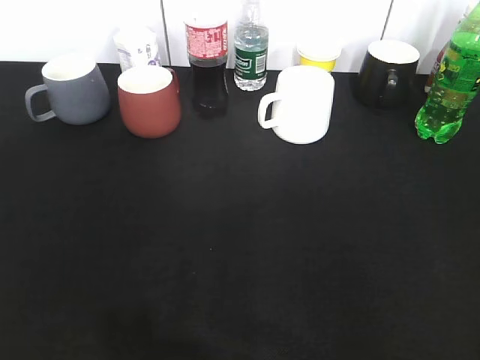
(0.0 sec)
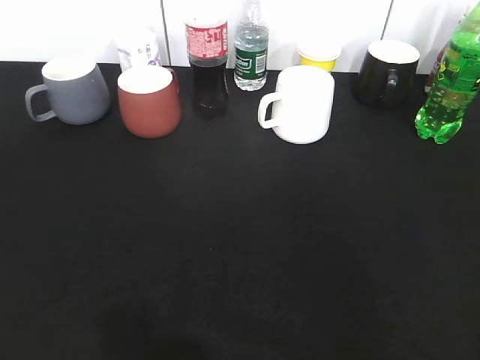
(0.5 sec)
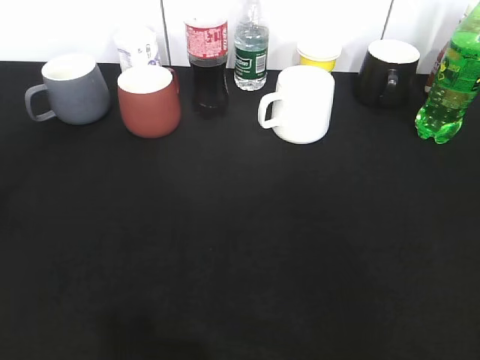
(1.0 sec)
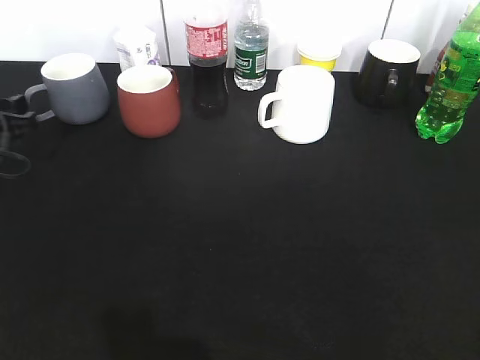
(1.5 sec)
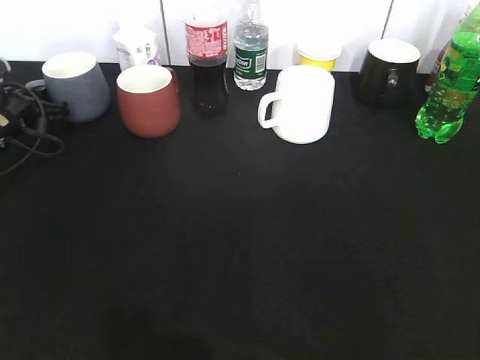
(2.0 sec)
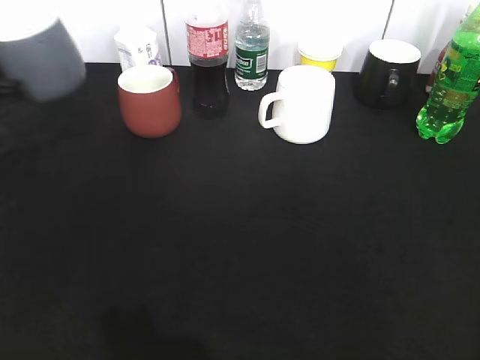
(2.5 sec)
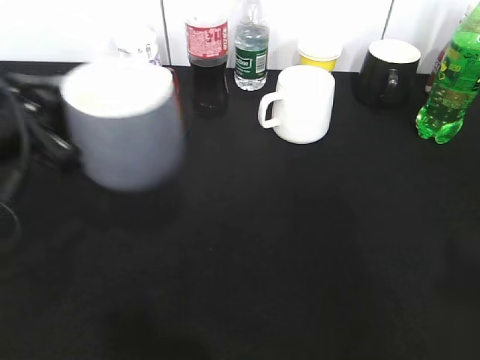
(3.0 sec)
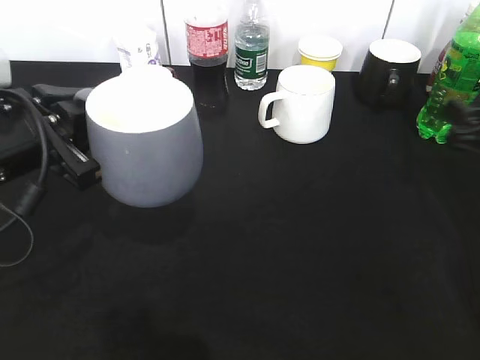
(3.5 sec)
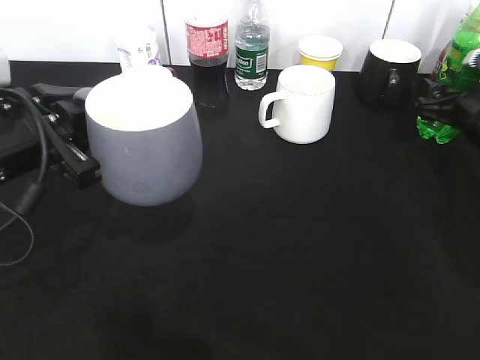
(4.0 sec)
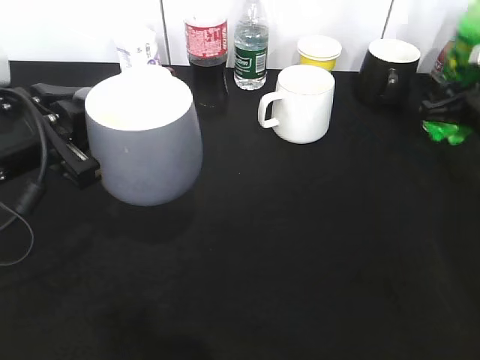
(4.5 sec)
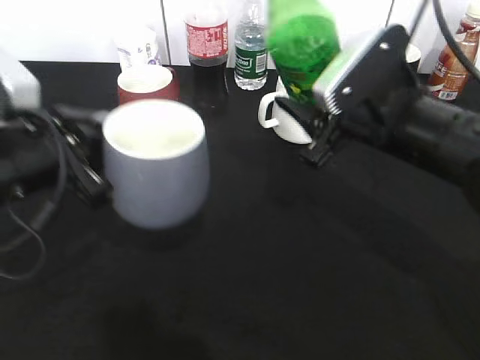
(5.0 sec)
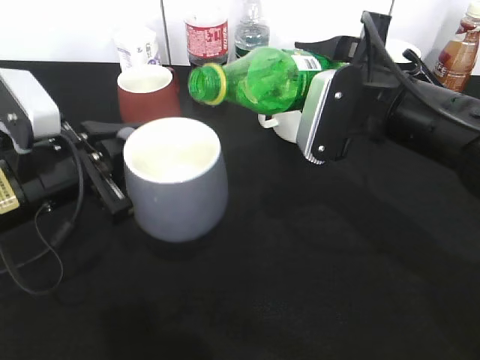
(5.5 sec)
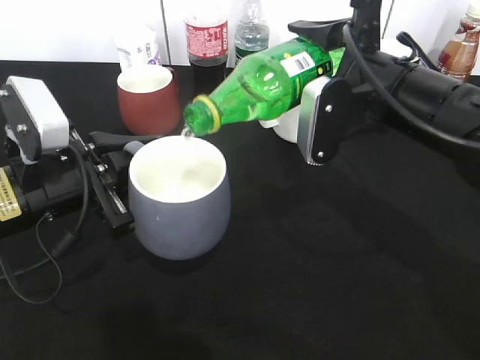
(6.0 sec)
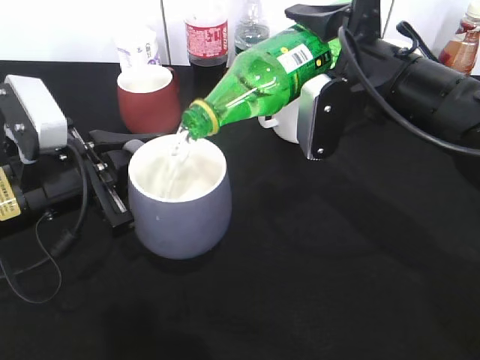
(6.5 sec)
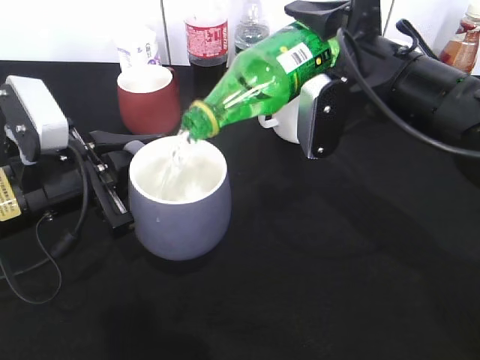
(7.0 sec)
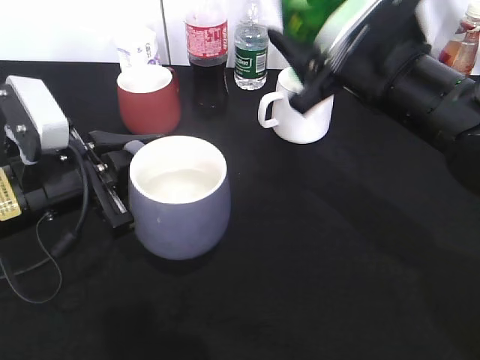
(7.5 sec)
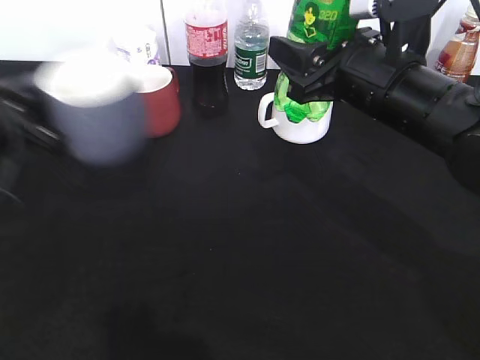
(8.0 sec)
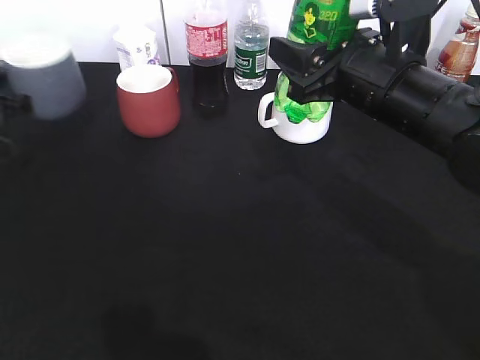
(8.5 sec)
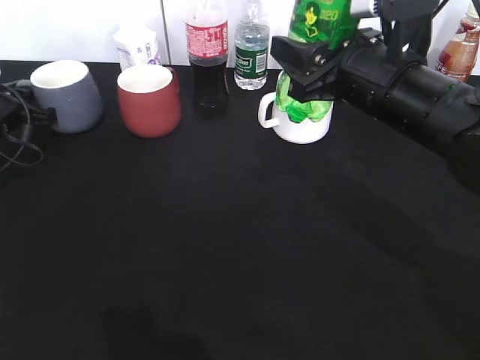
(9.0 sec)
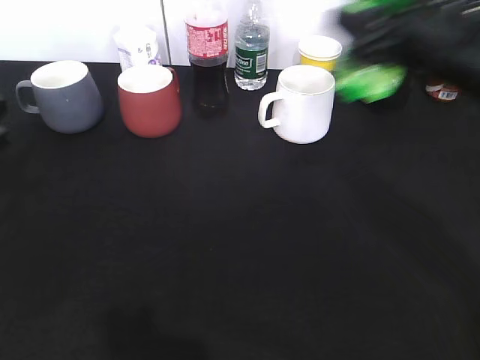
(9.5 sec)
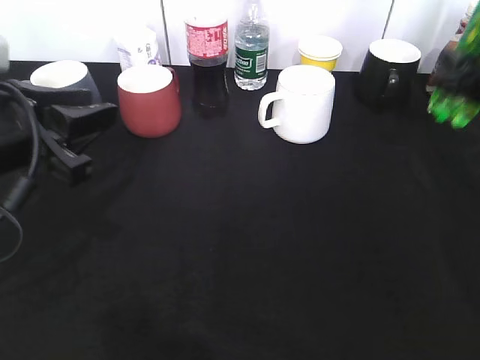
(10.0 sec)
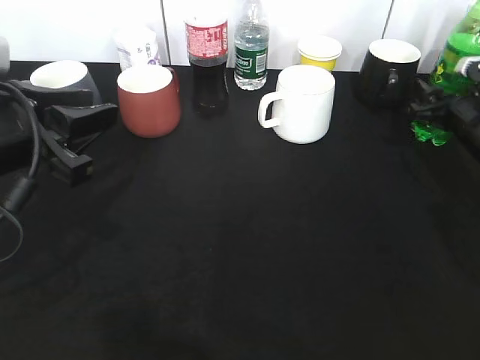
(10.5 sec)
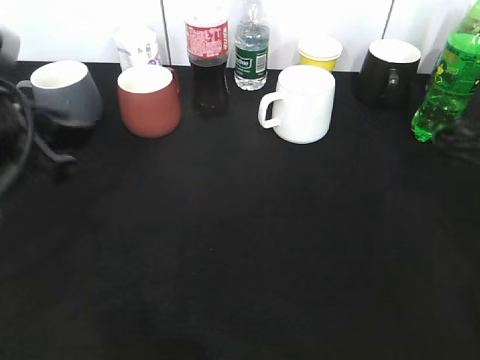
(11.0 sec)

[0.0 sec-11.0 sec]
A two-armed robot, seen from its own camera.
Step, 0.0 sec to 2.0 sec: Grasp the grey cup with left gripper.
Step, 2.5 sec to 3.0 sec: Lift the grey cup with left gripper.
Step, 3.5 sec to 4.0 sec: Grasp the bottle with sprite with right gripper.
Step, 4.5 sec to 7.0 sec: Pour the sprite from bottle to cup with right gripper.
Step, 7.5 sec to 10.5 sec: Place the sprite bottle on the table with right gripper.
0.0 sec to 2.0 sec: The left gripper shifts about 50 cm forward and downward, and closes.
2.0 sec to 3.5 sec: The right gripper heads forward and downward, covering roughly 30 cm, while the left gripper shifts about 25 cm backward, upward and to the right.
3.5 sec to 5.5 sec: The left gripper moves roughly 5 cm. The right gripper moves to the left, about 15 cm, and closes up.
7.5 sec to 9.0 sec: The left gripper shifts roughly 25 cm forward and to the left.
9.0 sec to 11.0 sec: The left gripper shifts some 25 cm backward, upward and to the right, while the right gripper is displaced to the right by about 15 cm, and opens its fingers.

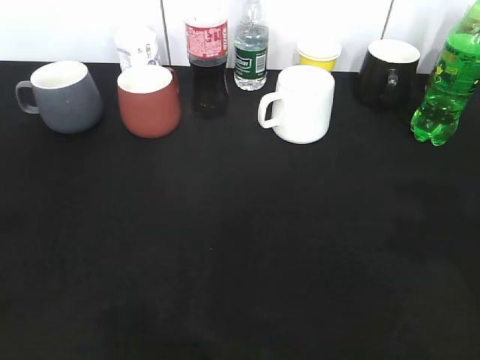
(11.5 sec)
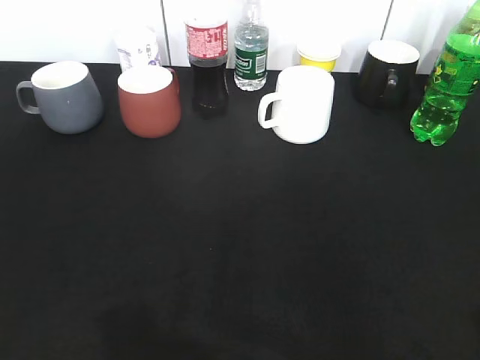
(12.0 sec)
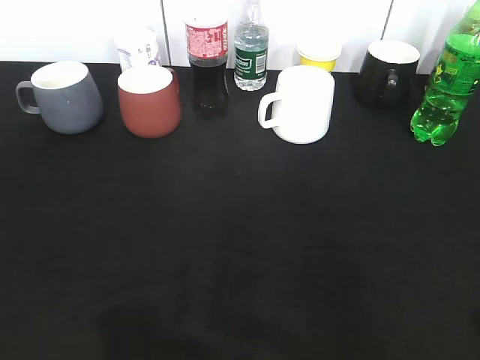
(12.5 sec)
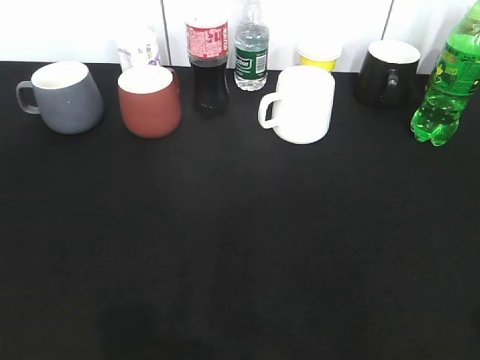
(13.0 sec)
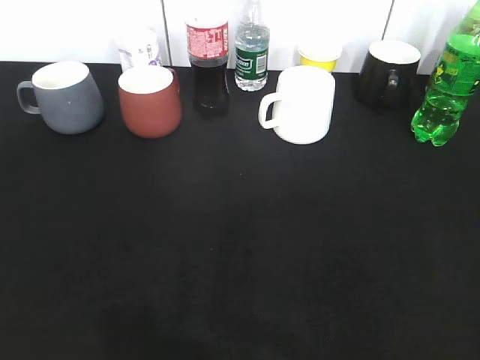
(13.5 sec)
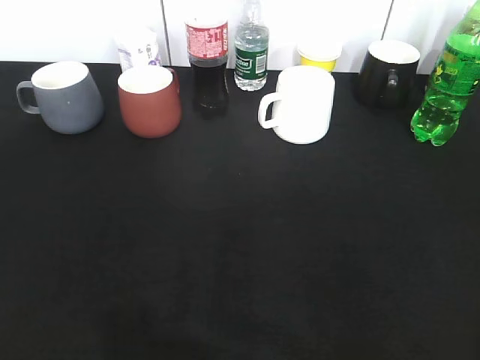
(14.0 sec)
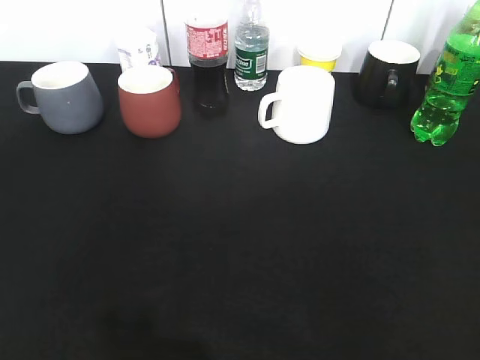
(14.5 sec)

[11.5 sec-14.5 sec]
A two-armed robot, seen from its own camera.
11.5 sec to 13.0 sec: The left gripper heads backward, covering about 10 cm; the right gripper goes roughly 15 cm backward.

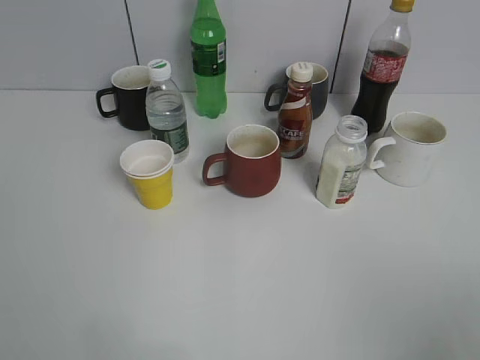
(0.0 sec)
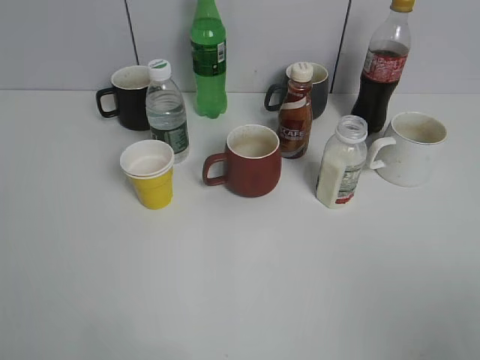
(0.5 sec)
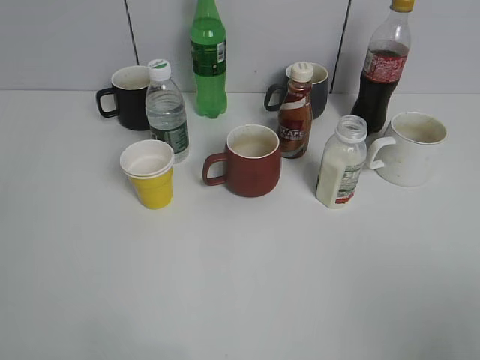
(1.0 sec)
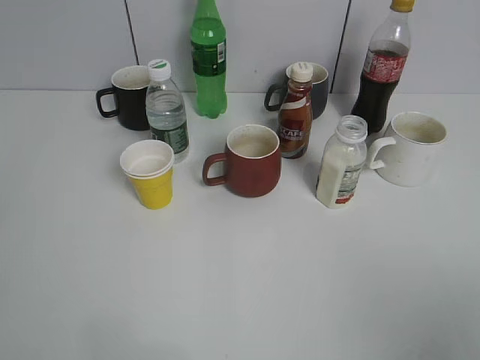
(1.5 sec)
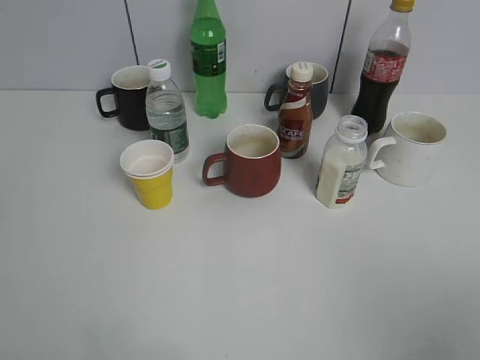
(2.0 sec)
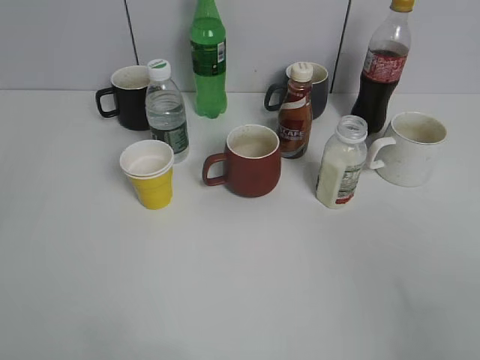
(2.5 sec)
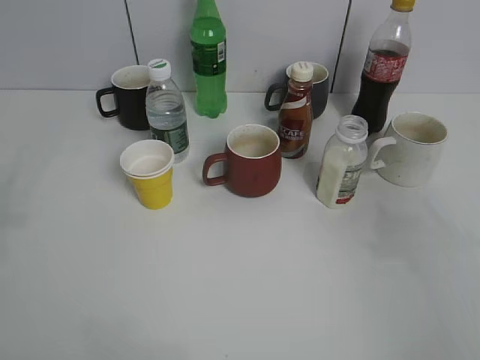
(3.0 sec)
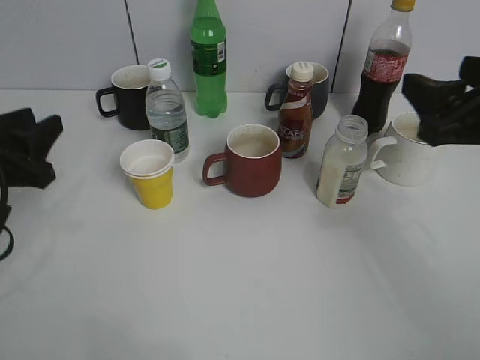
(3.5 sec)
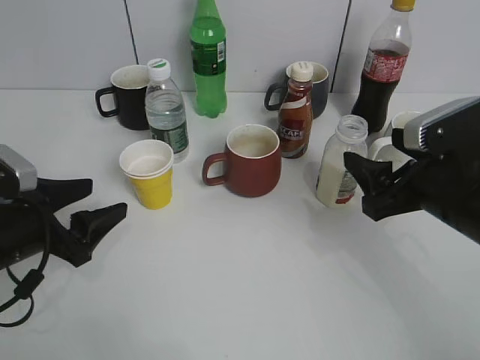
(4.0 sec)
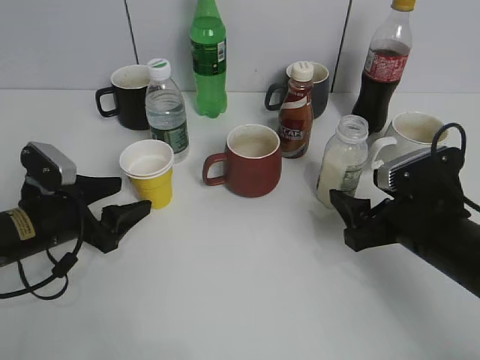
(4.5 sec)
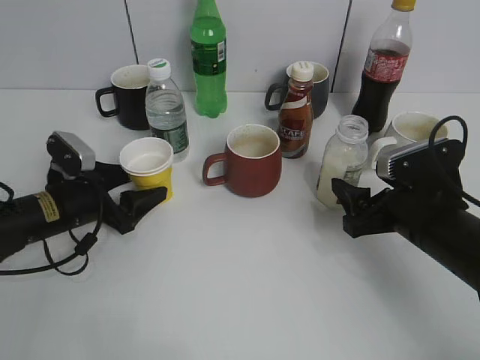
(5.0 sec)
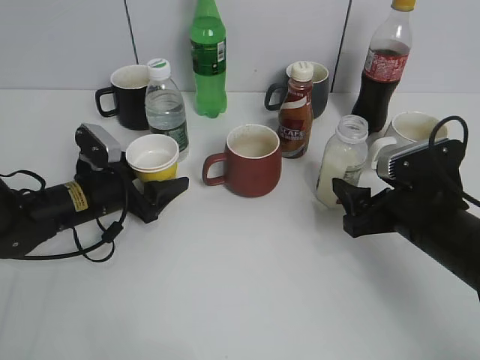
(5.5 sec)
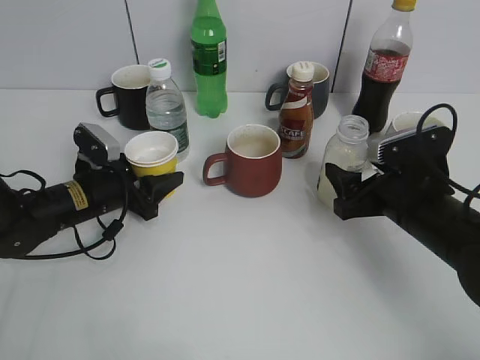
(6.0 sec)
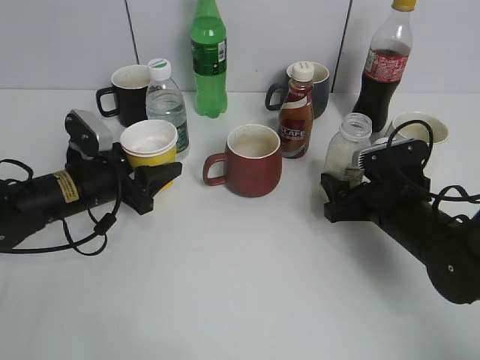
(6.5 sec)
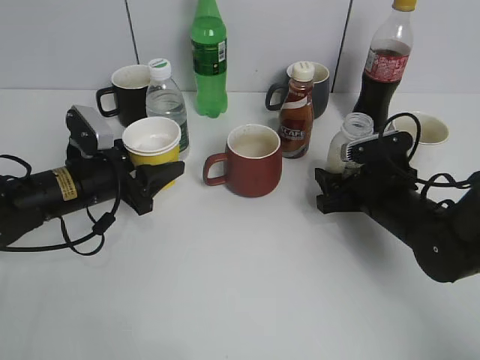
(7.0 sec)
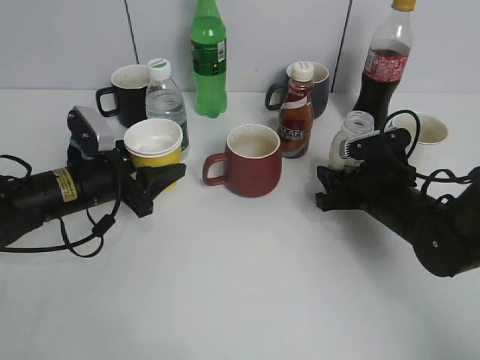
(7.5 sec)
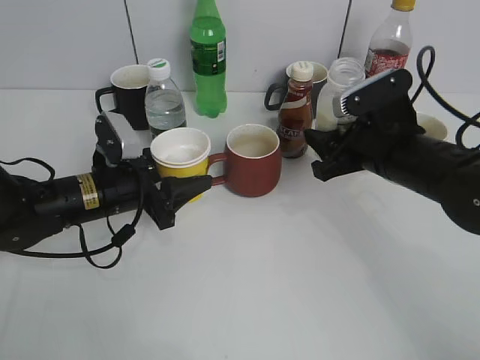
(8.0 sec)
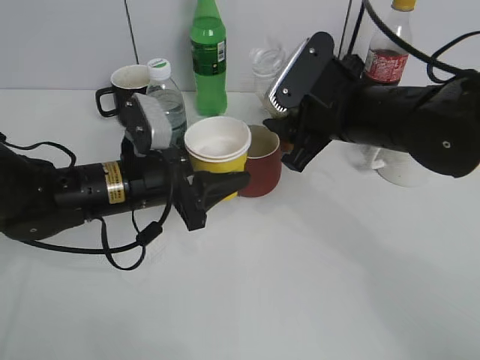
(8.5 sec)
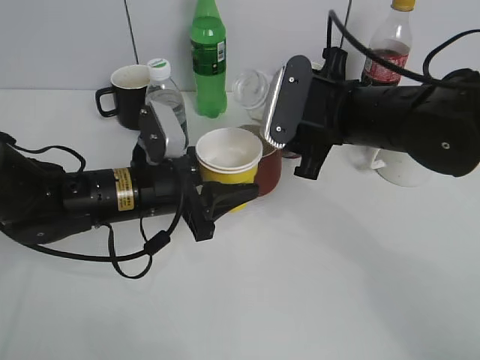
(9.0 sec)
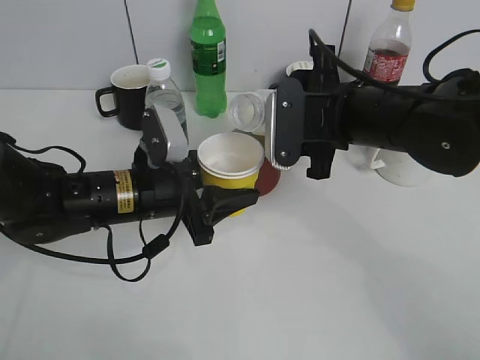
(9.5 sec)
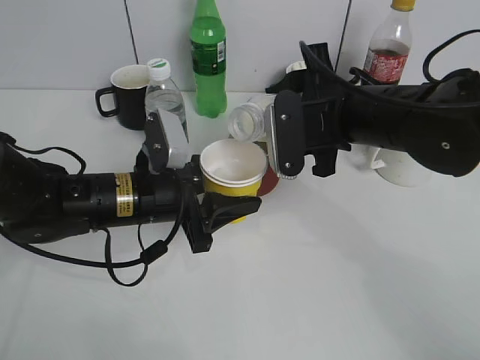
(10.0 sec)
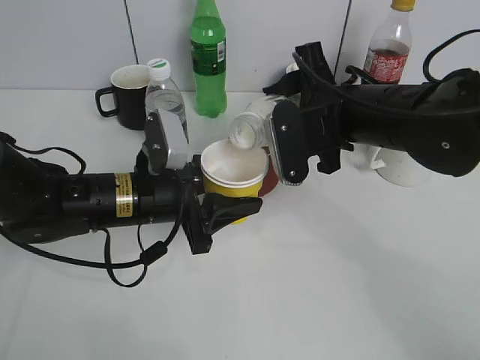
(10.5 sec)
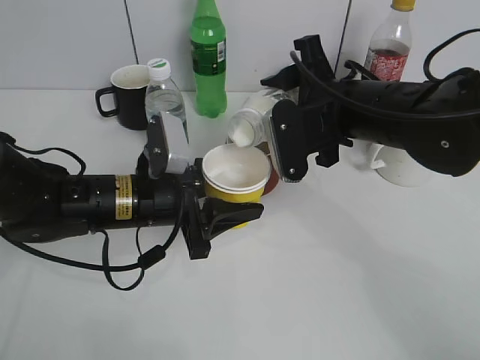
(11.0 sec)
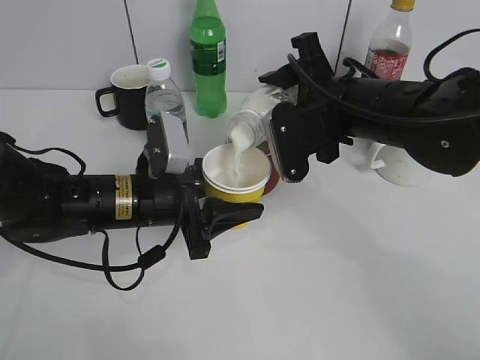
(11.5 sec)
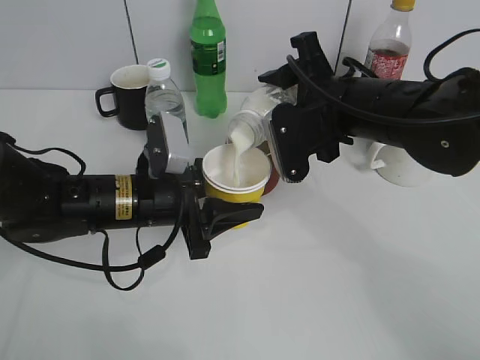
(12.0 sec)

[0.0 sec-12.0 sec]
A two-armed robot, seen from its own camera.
Step, 3.5 sec to 6.0 sec: Grasp the yellow paper cup with left gripper.
2.0 sec to 4.0 sec: The grippers both shift forward and downward by approximately 30 cm. The left gripper opens its fingers.
4.0 sec to 6.0 sec: The left gripper travels forward and downward by some 15 cm. The right gripper shifts roughly 5 cm downward.
6.0 sec to 8.0 sec: The right gripper moves roughly 5 cm, and closes. The left gripper ends up about 5 cm from where it was.
8.0 sec to 10.0 sec: The left gripper goes roughly 5 cm to the right. The right gripper goes about 10 cm to the left and upward.
10.0 sec to 12.0 sec: There are only small adjustments of the grippers.
